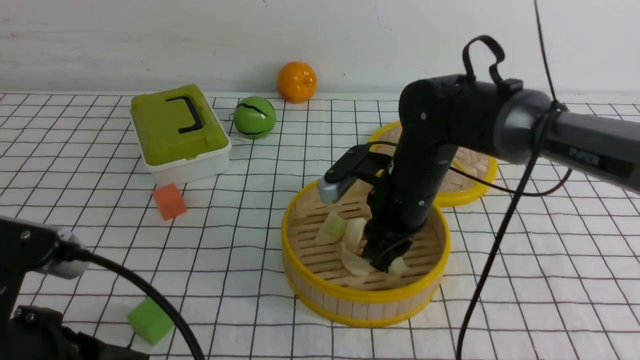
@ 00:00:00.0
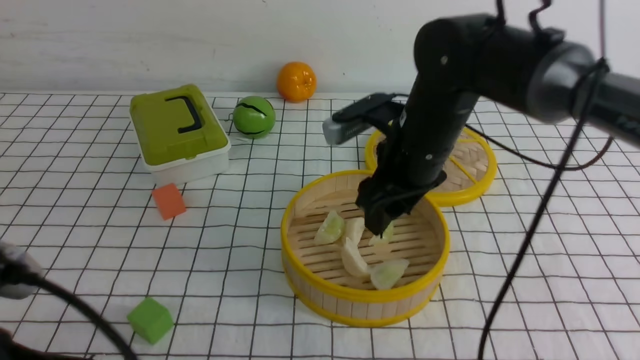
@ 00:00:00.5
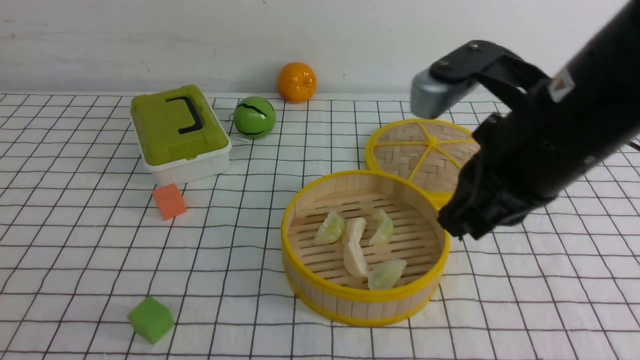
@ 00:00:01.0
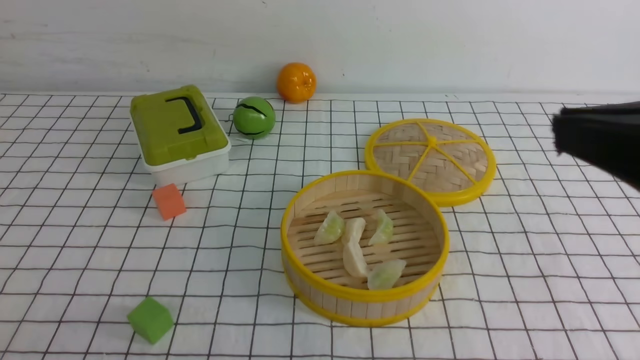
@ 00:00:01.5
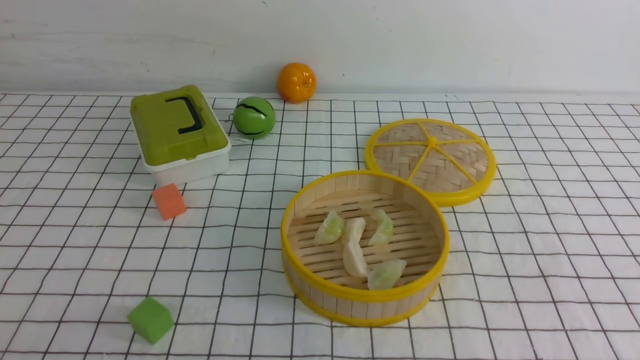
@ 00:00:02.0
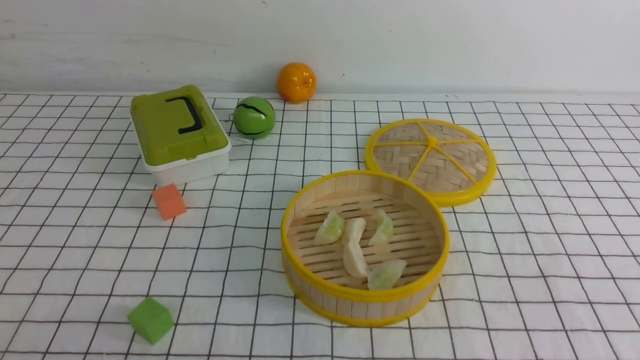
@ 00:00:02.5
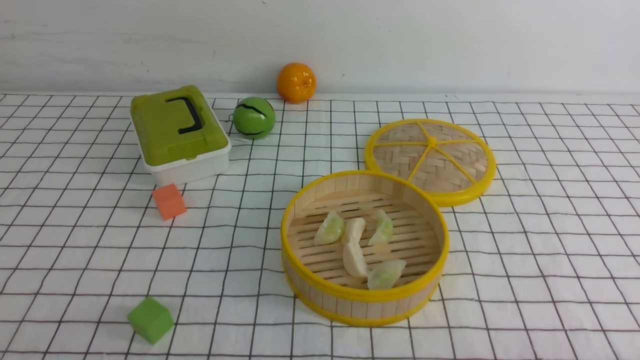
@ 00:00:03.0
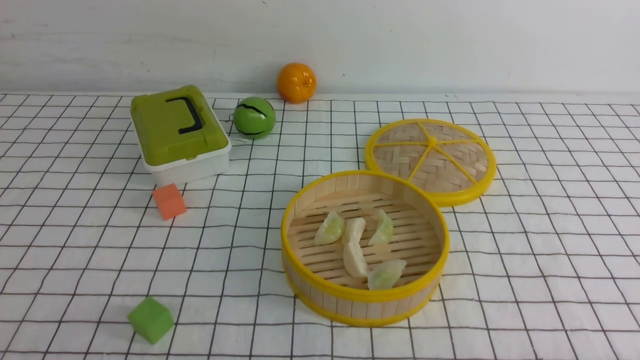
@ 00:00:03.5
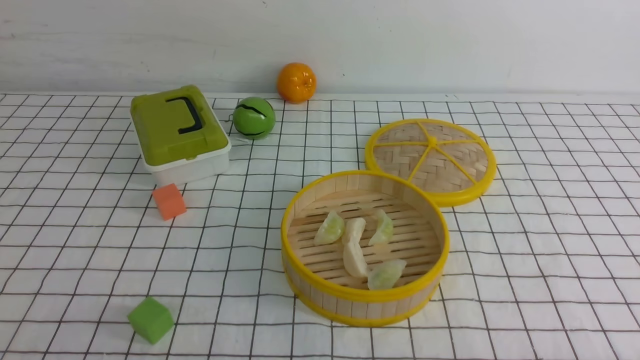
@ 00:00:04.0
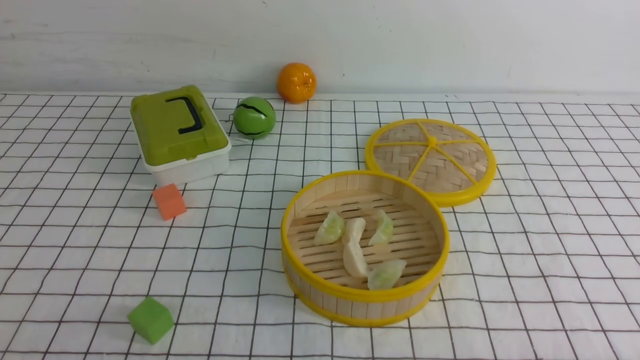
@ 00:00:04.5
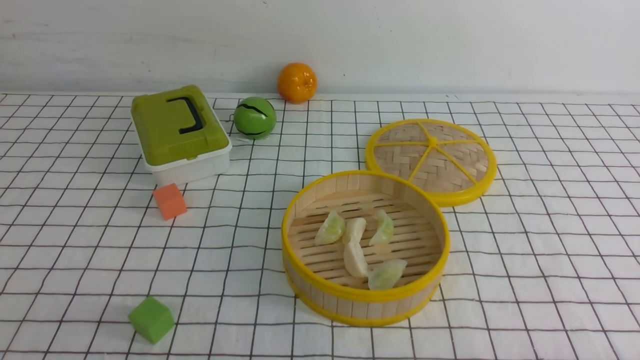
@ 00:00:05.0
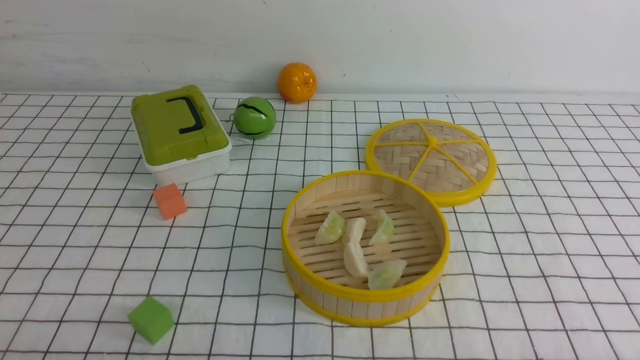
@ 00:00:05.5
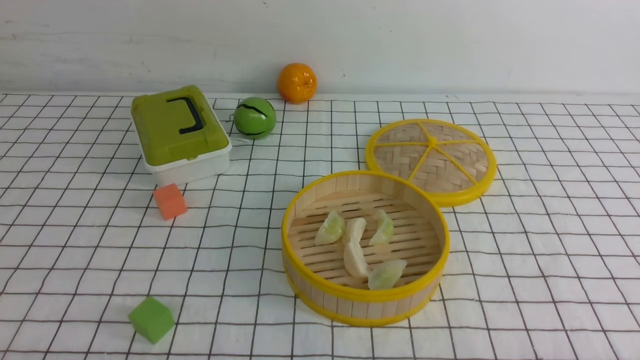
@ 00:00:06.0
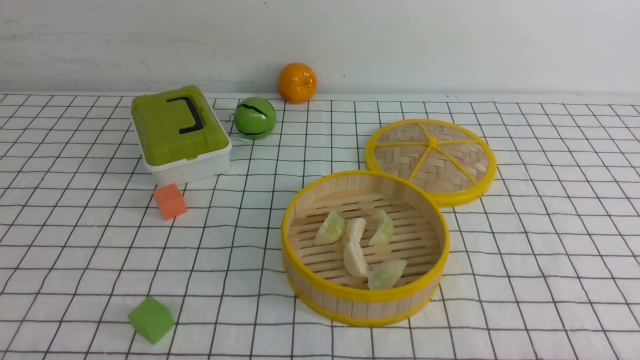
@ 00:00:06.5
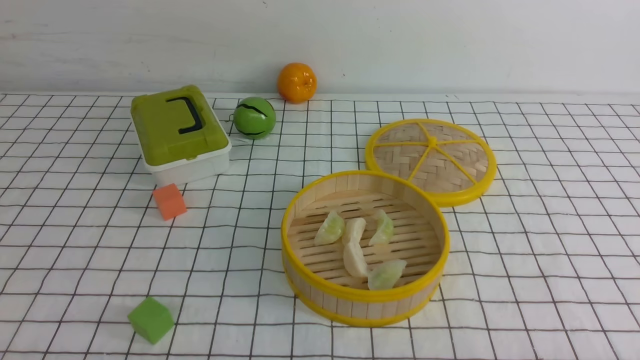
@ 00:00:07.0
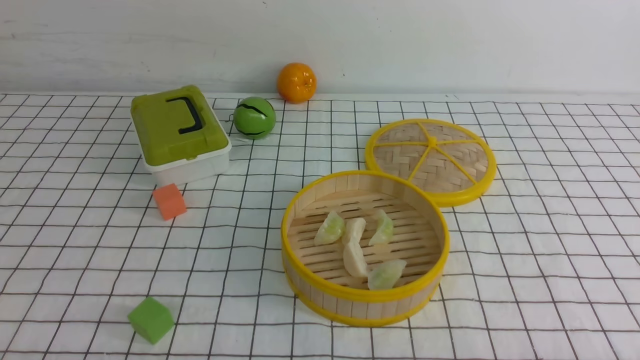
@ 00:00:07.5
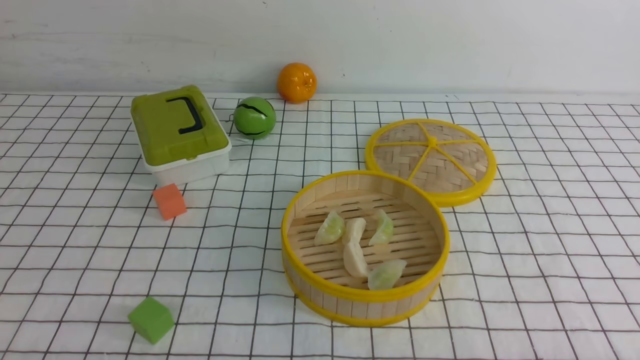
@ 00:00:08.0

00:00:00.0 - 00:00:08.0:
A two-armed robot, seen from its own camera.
Task of the whole recording: put the dumplings into the steamer on the table with the white tablecloth.
00:00:00.0 - 00:00:02.0: The right gripper goes some 40 cm backward, upward and to the right, and closes up; the left gripper shifts approximately 10 cm backward and to the left.
00:00:06.0 - 00:00:08.0: The two grippers keep their place.

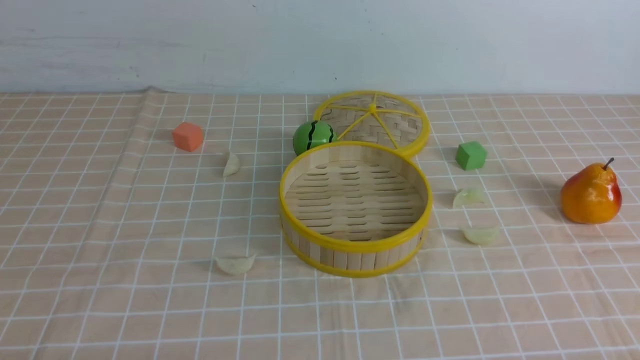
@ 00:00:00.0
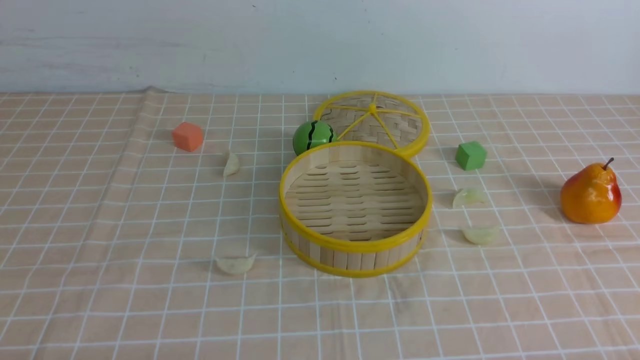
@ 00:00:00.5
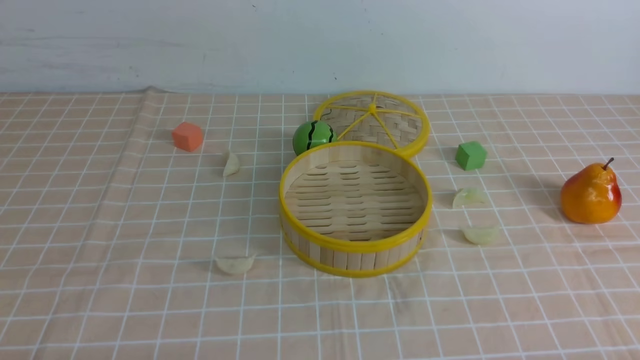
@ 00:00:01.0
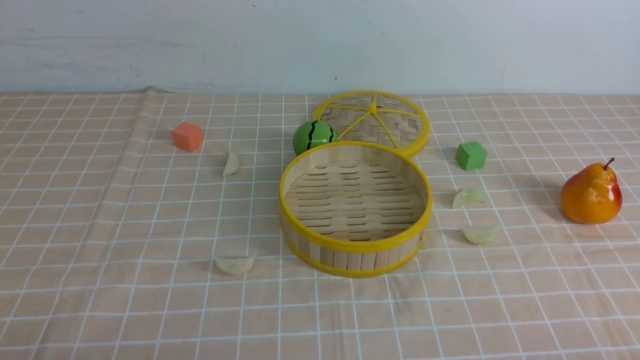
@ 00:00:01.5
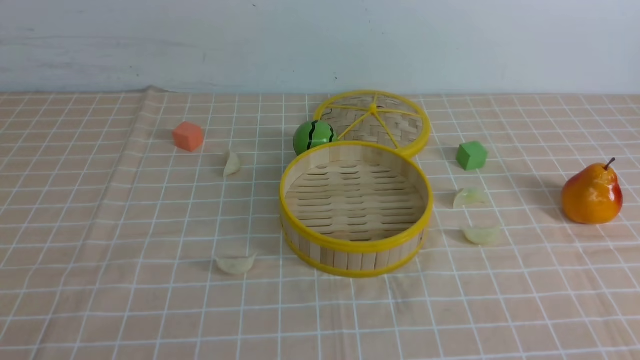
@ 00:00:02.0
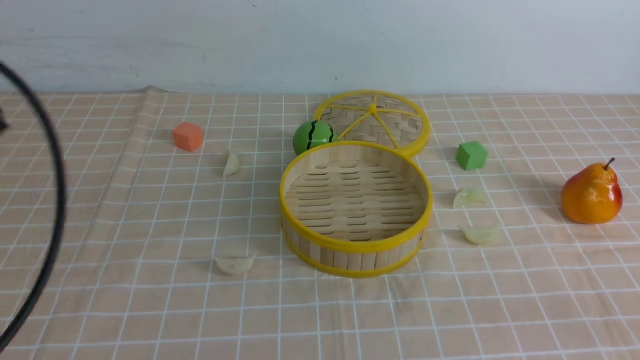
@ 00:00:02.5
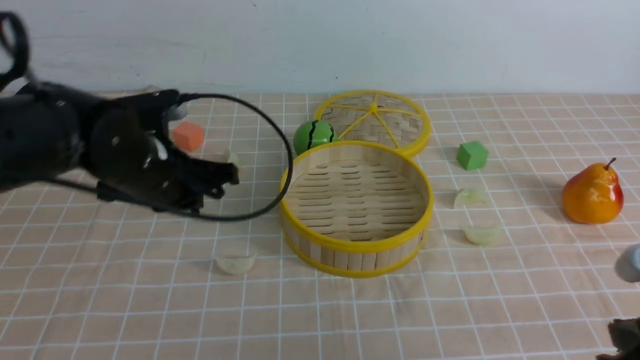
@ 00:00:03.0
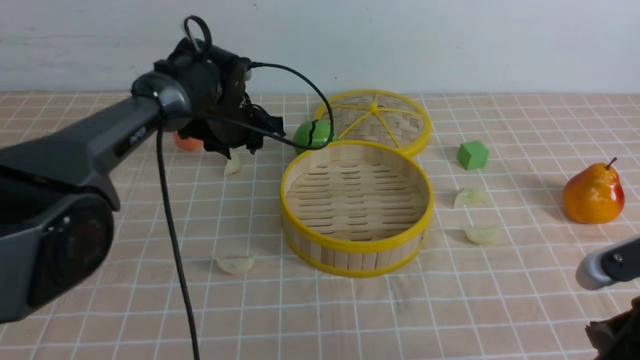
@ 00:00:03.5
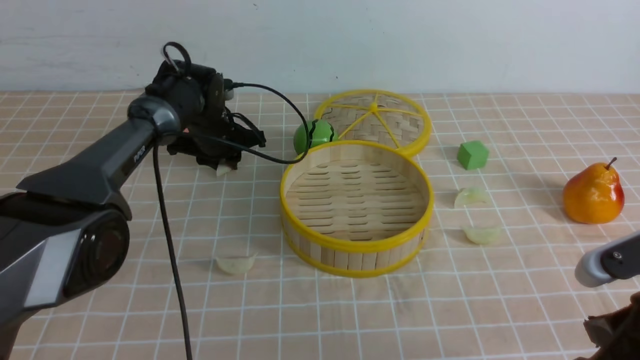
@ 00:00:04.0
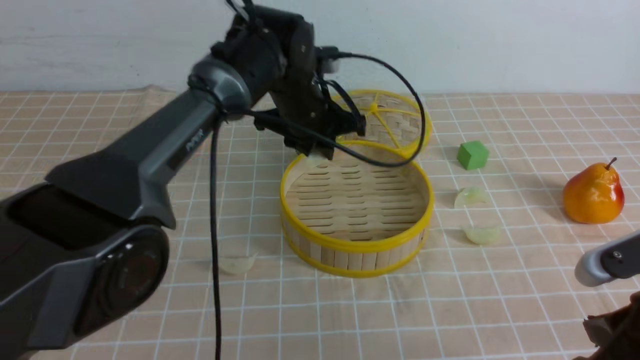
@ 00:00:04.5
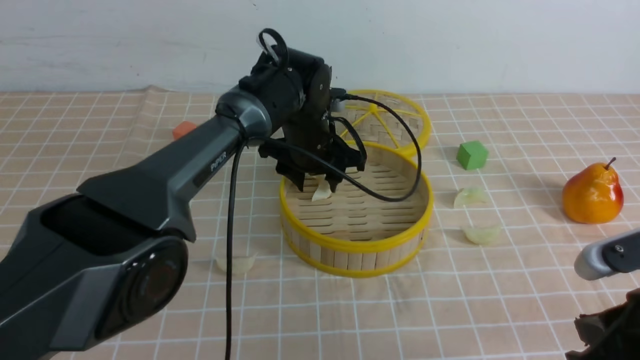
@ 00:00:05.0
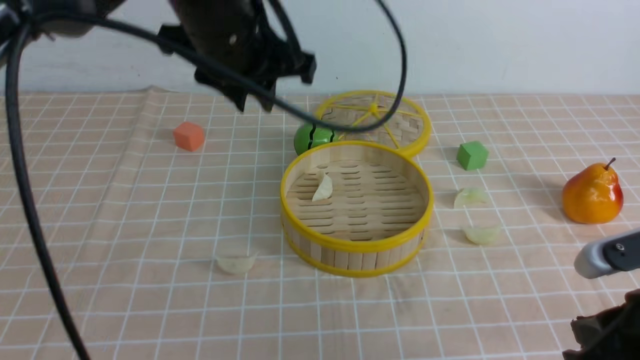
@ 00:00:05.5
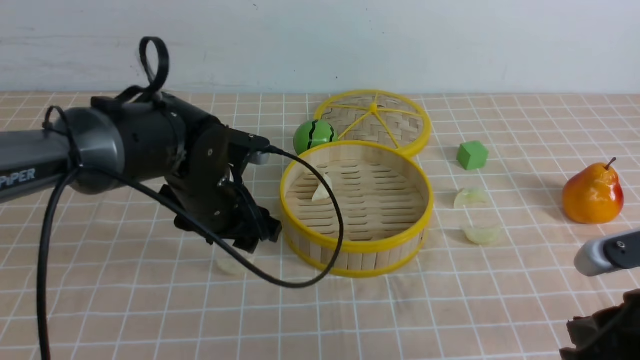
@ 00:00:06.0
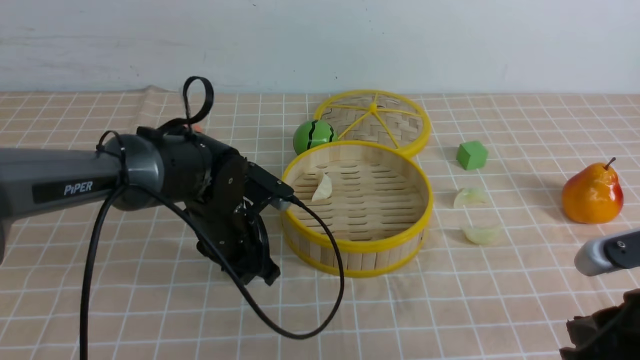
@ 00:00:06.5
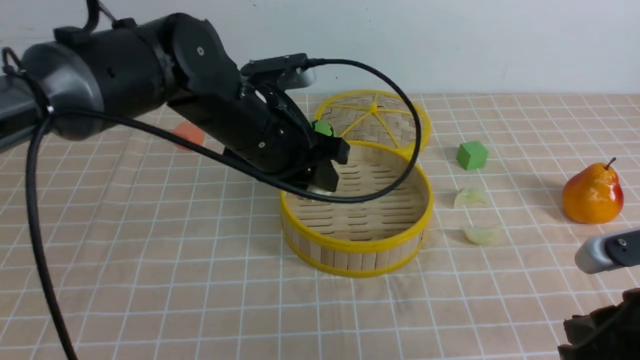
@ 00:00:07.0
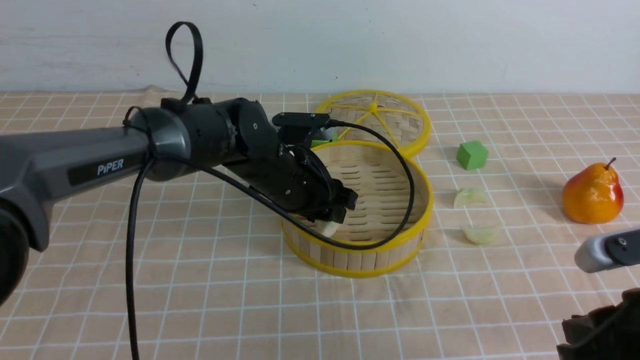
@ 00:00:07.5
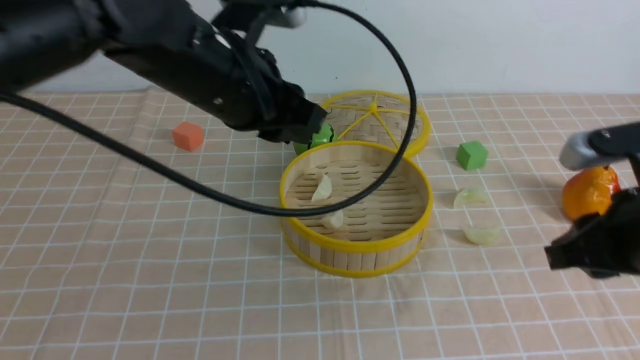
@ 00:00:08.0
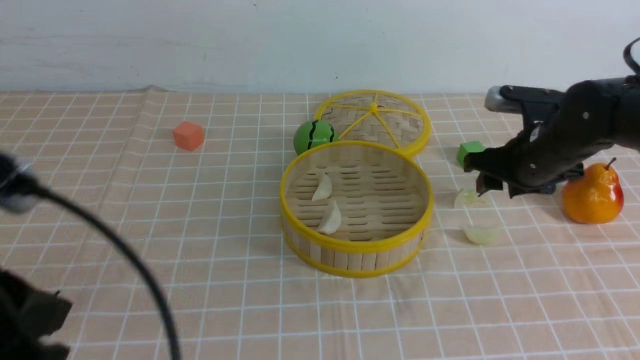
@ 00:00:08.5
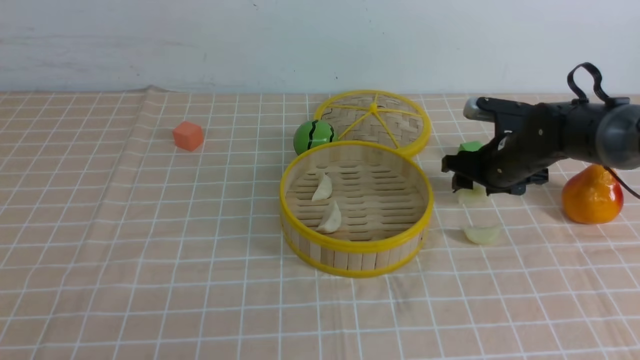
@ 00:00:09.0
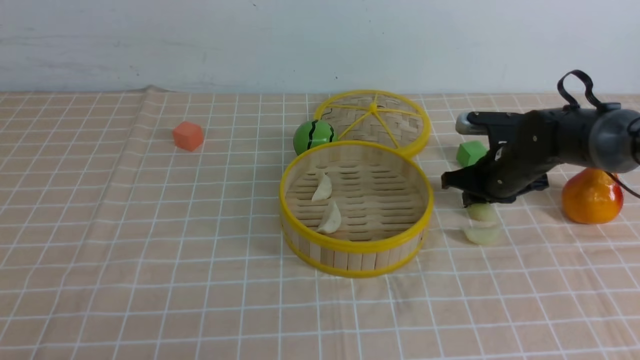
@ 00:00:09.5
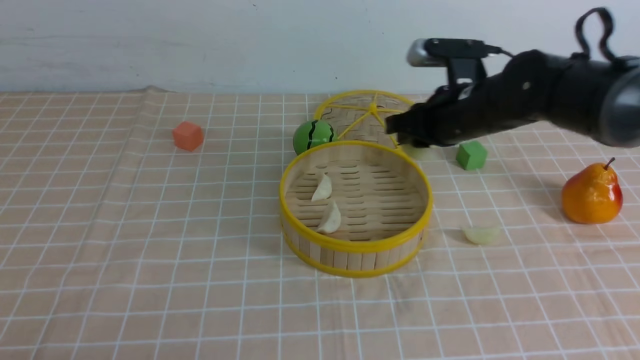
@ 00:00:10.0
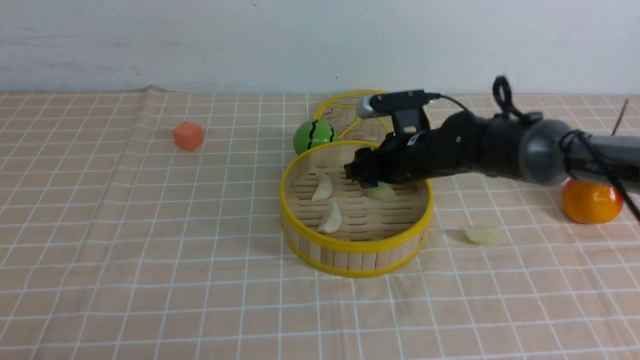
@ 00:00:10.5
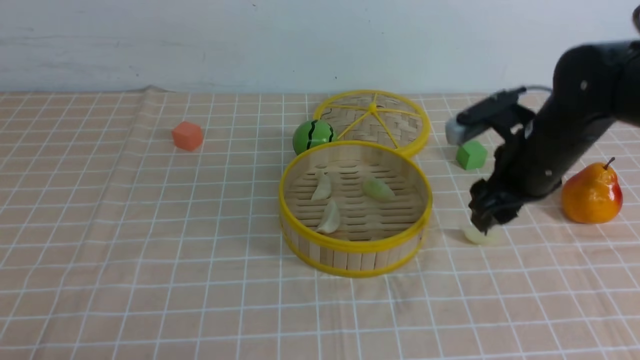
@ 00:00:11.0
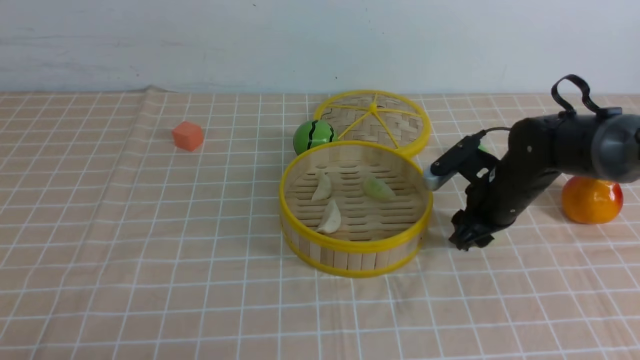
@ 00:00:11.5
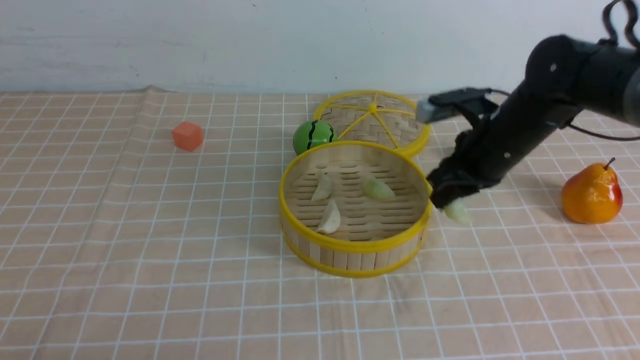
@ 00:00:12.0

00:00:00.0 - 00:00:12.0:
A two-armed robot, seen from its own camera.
Task of the whole recording: put the dumplings into the steamer on the table with the brown tablecloth.
Step, 00:00:00.0 - 00:00:03.5: use the left arm to grab a dumpling.
Step, 00:00:04.5 - 00:00:05.0: use the left arm to put the dumpling into the steamer.
Step, 00:00:05.5 - 00:00:06.5: use the left arm to grab a dumpling.
Step, 00:00:07.0 - 00:00:07.5: use the left arm to put the dumpling into the steamer.
Step, 00:00:08.0 - 00:00:09.0: use the right arm to grab a dumpling.
Step, 00:00:09.5 - 00:00:10.5: use the right arm to put the dumpling into the steamer.
Step, 00:00:11.0 - 00:00:11.5: use the right arm to grab a dumpling.
00:00:02.0 - 00:00:04.0: The left gripper is displaced forward by some 50 cm. The right gripper is displaced forward by roughly 15 cm.
00:00:04.0 - 00:00:06.0: The left gripper goes about 20 cm backward, and opens.
00:00:06.0 - 00:00:08.0: The left gripper swings up and down, approximately 20 cm each way, with 2 reversals, and closes up; the right gripper is displaced forward and upward by roughly 10 cm.
00:00:08.0 - 00:00:10.0: The right gripper moves forward, approximately 20 cm, and opens, then closes once more, while the left gripper shifts some 30 cm backward, to the left and downward, and closes.
00:00:10.0 - 00:00:12.0: The right gripper opens, then closes again.
